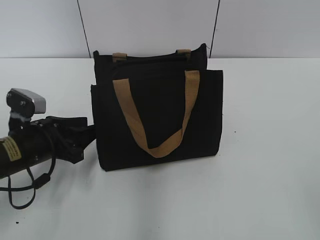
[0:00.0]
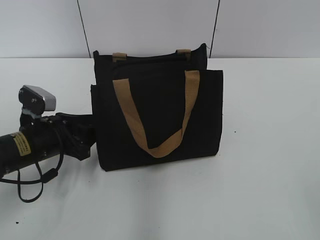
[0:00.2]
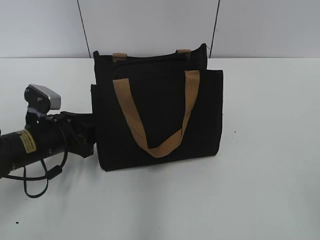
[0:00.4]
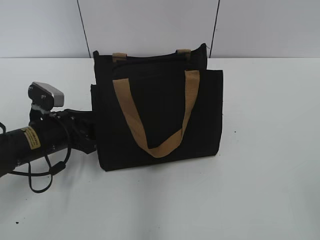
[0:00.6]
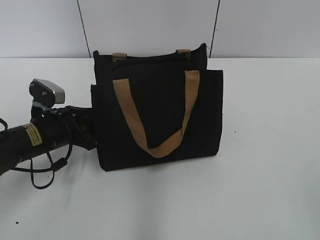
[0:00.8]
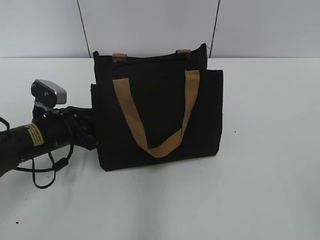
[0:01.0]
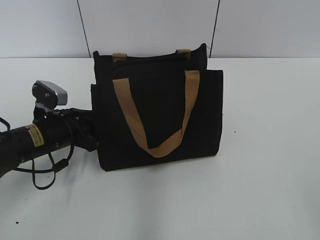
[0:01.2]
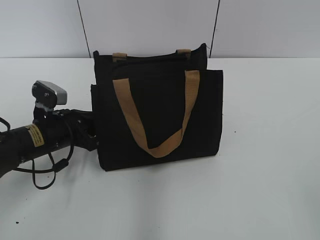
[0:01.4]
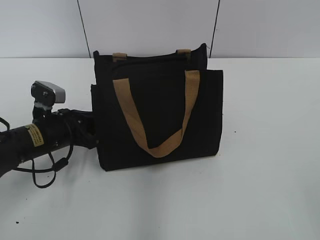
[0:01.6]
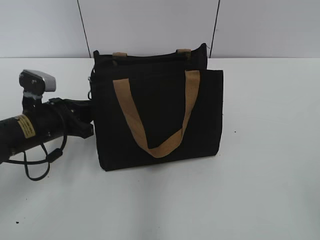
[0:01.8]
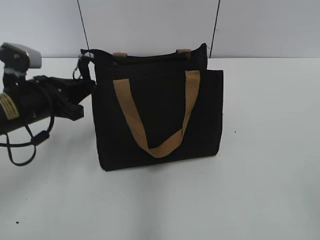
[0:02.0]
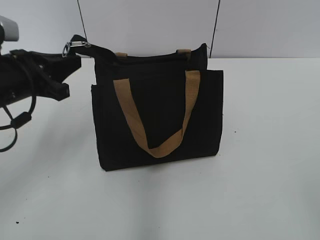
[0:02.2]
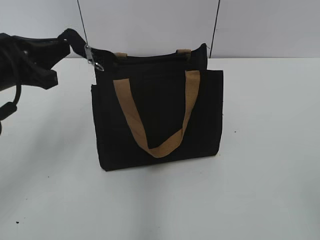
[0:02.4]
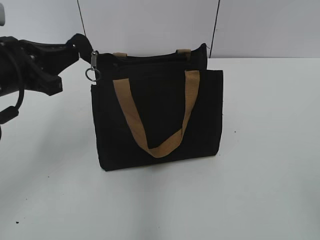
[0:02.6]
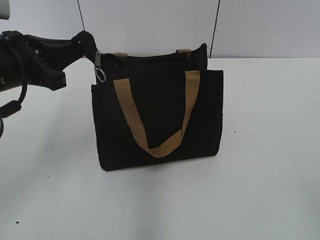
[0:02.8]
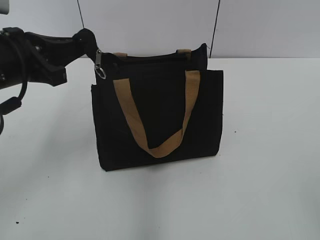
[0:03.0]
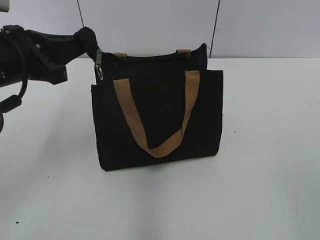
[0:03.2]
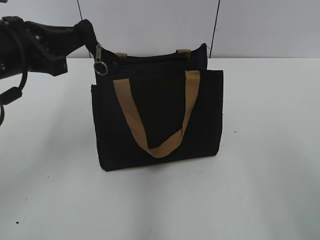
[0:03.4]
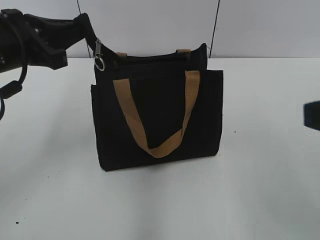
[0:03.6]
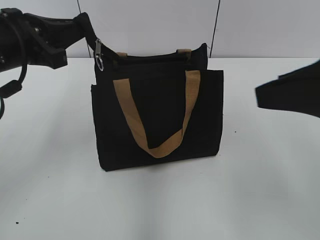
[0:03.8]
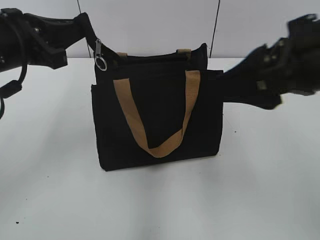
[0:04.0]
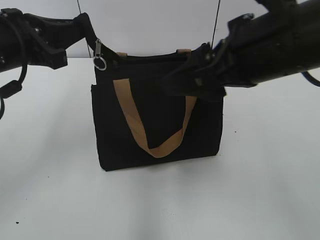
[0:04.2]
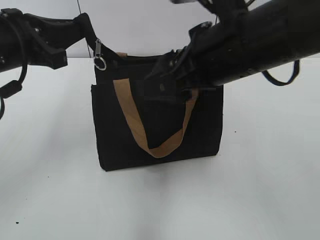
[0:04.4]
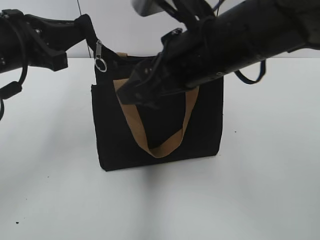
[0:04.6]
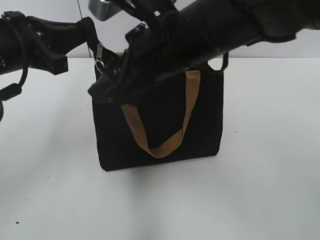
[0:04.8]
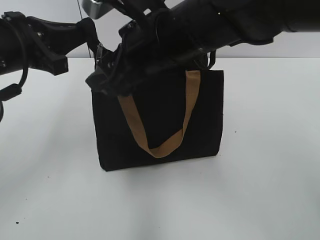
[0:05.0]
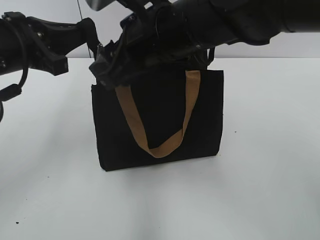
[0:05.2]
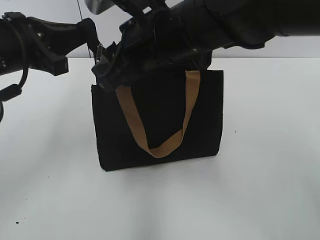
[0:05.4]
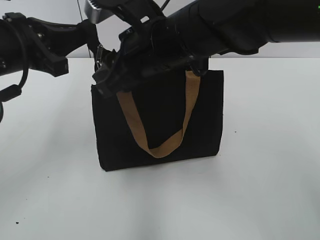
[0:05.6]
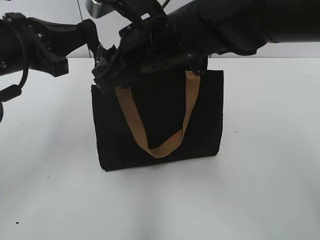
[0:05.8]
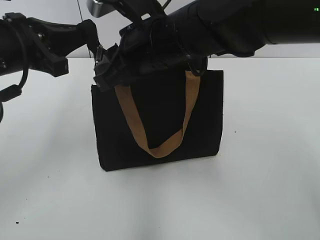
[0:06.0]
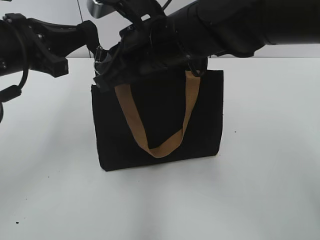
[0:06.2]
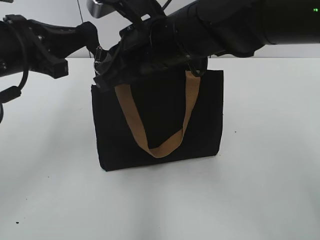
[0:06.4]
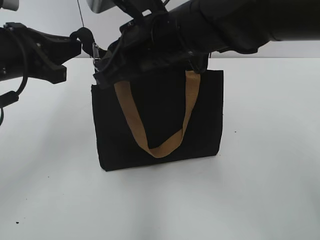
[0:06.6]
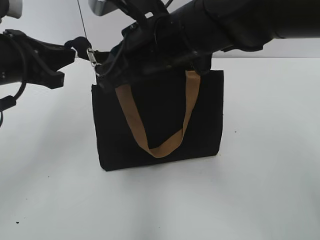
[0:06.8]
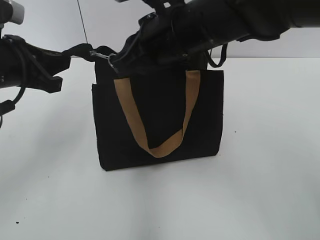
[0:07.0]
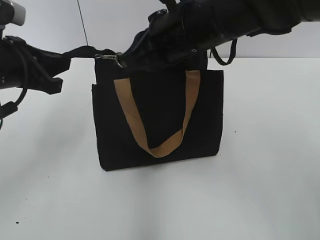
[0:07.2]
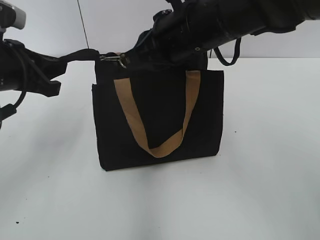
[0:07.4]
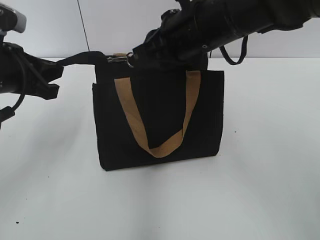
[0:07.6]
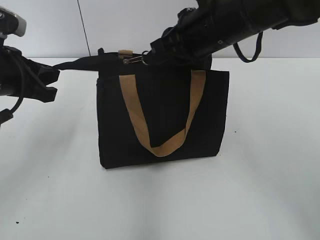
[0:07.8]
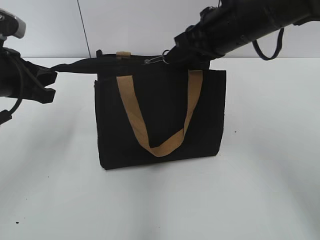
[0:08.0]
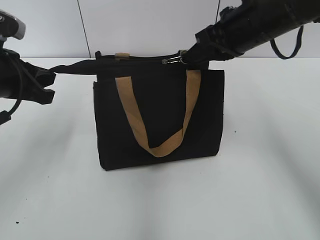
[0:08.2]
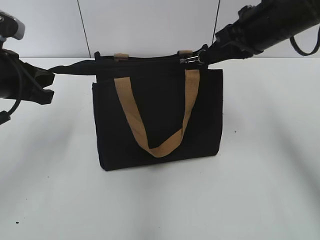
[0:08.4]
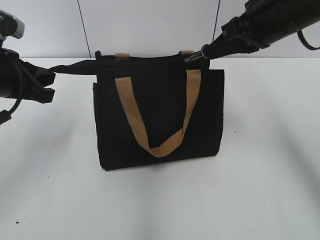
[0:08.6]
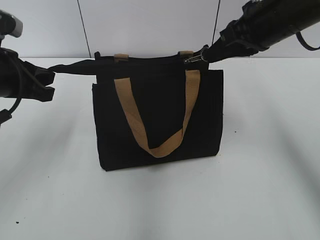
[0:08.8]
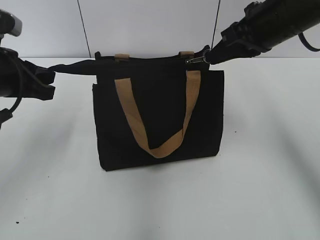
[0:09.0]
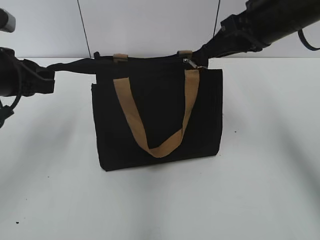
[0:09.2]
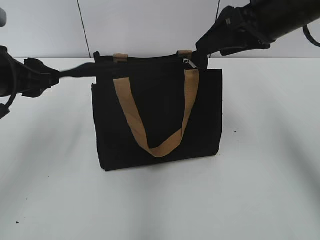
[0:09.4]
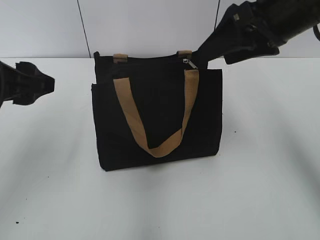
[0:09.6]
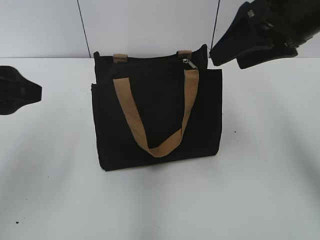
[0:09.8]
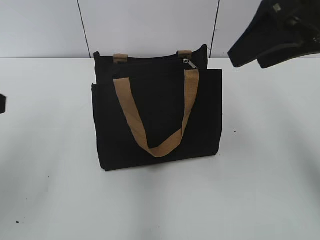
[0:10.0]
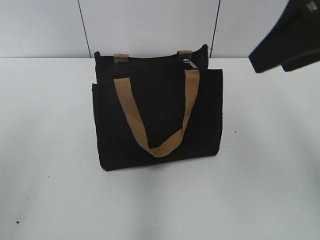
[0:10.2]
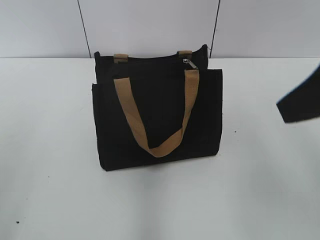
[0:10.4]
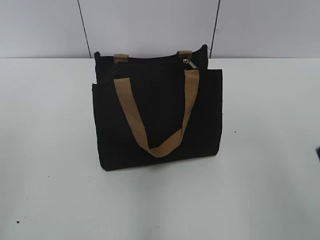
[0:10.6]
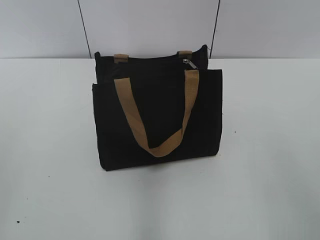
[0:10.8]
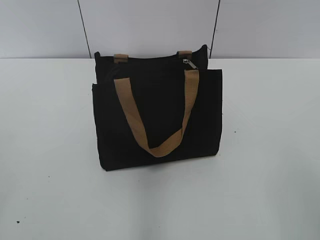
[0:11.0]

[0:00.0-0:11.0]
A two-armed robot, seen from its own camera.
Step, 0:00.0 to 0:09.0: Zip up the bag with your right hand.
Step, 0:09.2 to 0:09.4: Grab the zipper with your left hand.
0:00.0 to 0:01.6: The left gripper moves forward, approximately 5 cm, and closes its fingers.
0:01.6 to 0:03.2: The left gripper goes roughly 15 cm upward.
0:03.2 to 0:04.8: The right gripper moves forward and to the left, some 35 cm.
0:04.8 to 0:06.2: The right gripper closes its fingers.
0:06.2 to 0:07.8: The right gripper heads to the right, covering about 5 cm.
0:07.8 to 0:09.4: The right gripper is displaced to the right by about 10 cm, and opens. Meanwhile the left gripper opens its fingers.
0:09.4 to 0:11.0: The two grippers go roughly 25 cm backward.
